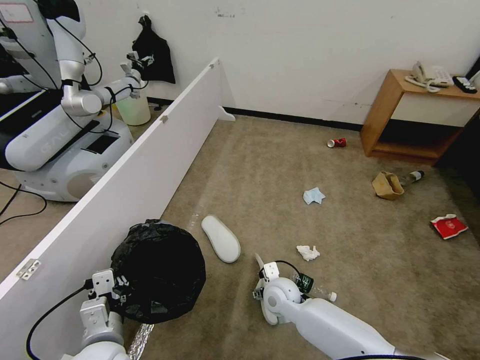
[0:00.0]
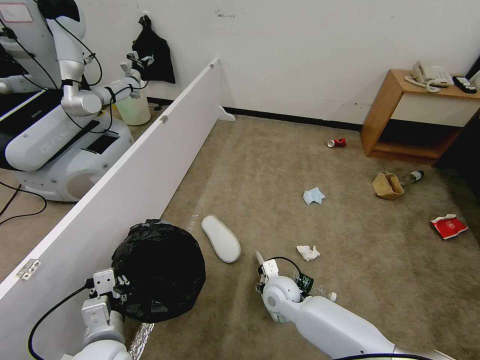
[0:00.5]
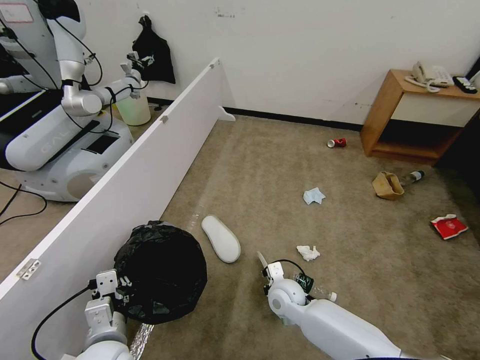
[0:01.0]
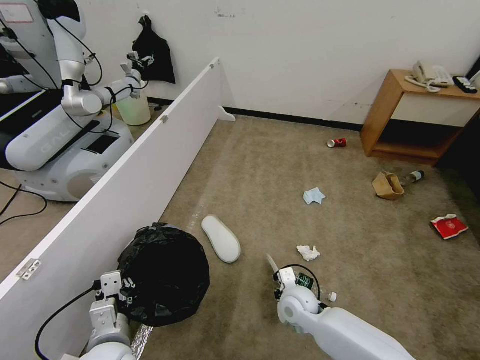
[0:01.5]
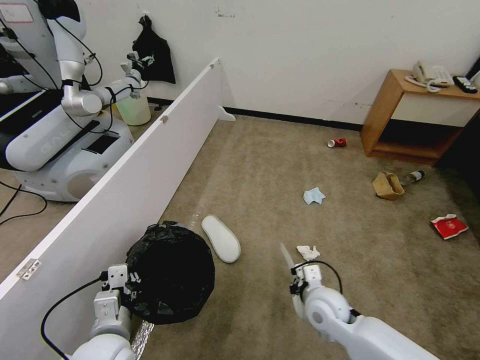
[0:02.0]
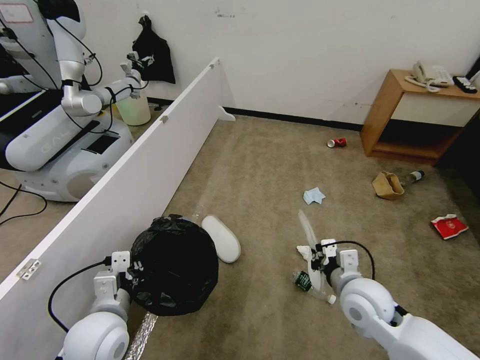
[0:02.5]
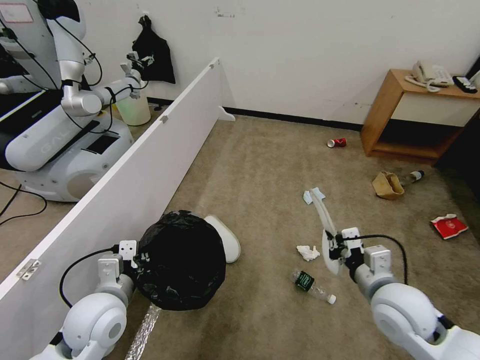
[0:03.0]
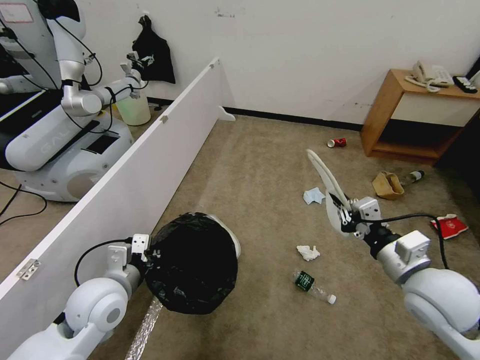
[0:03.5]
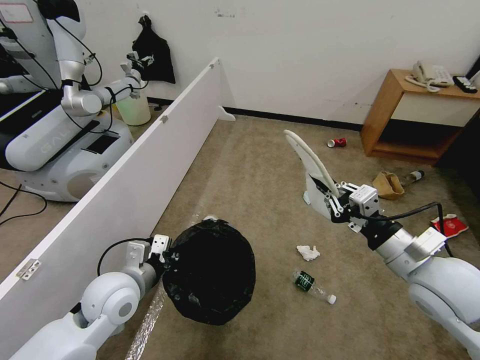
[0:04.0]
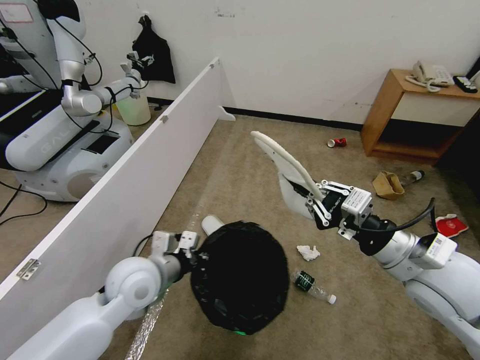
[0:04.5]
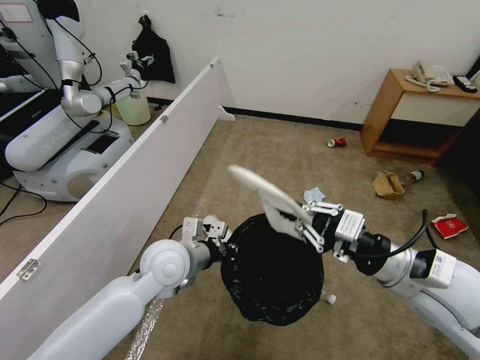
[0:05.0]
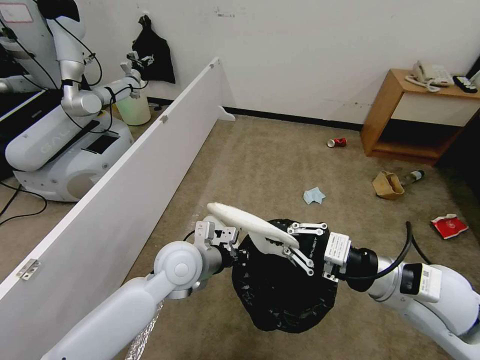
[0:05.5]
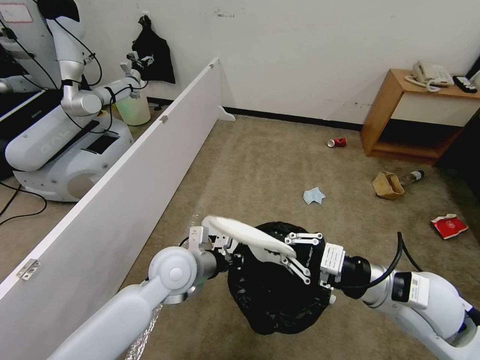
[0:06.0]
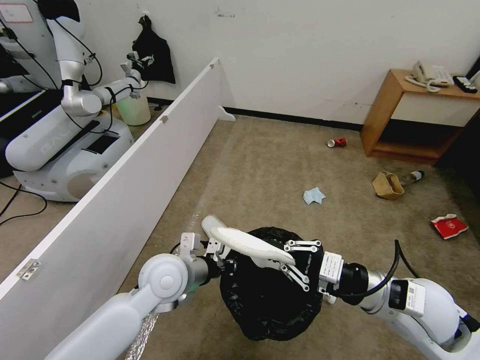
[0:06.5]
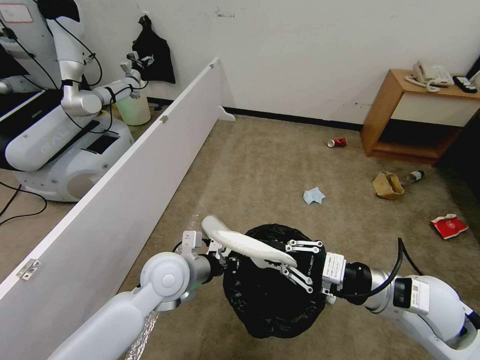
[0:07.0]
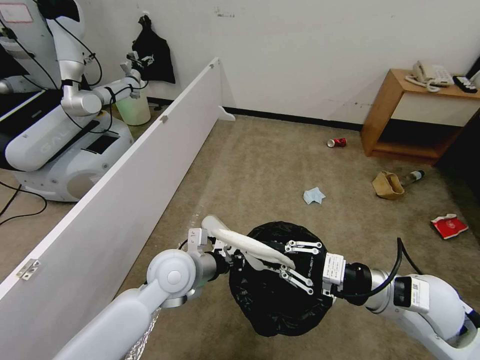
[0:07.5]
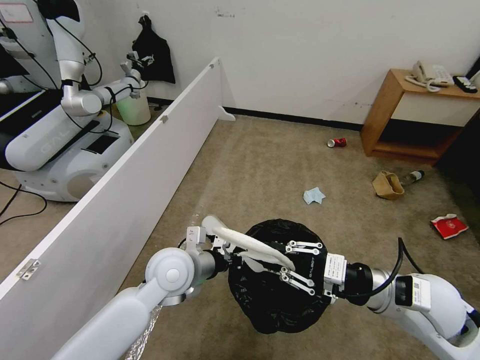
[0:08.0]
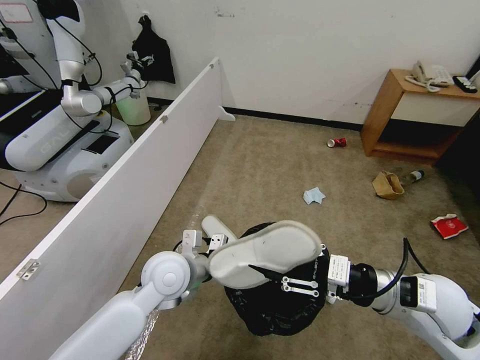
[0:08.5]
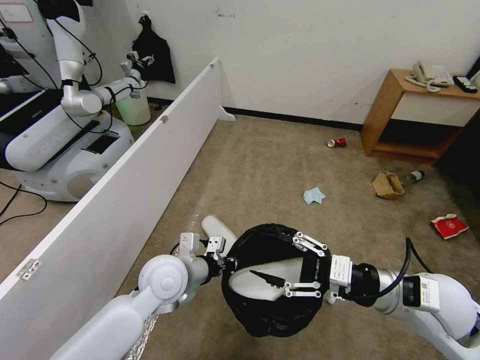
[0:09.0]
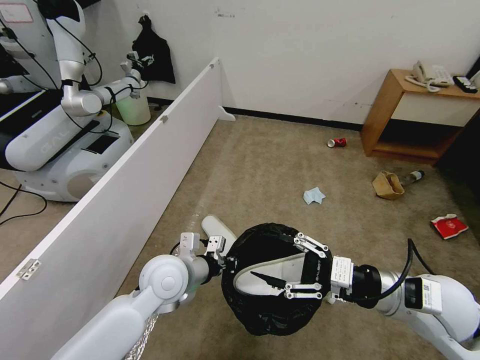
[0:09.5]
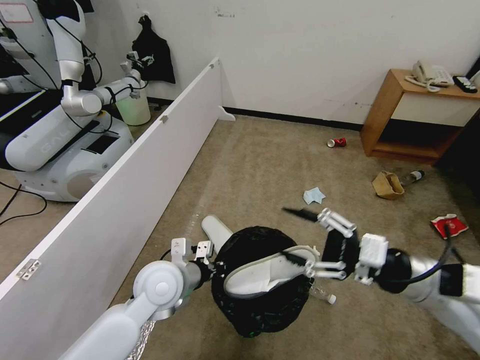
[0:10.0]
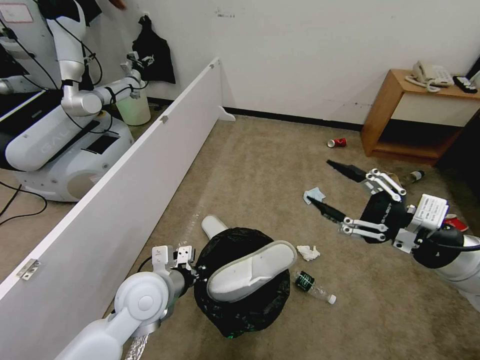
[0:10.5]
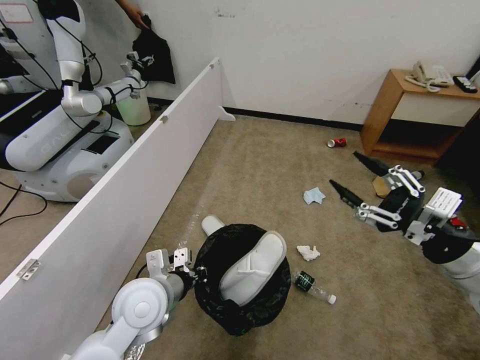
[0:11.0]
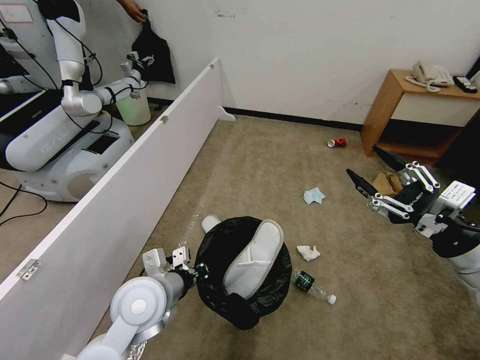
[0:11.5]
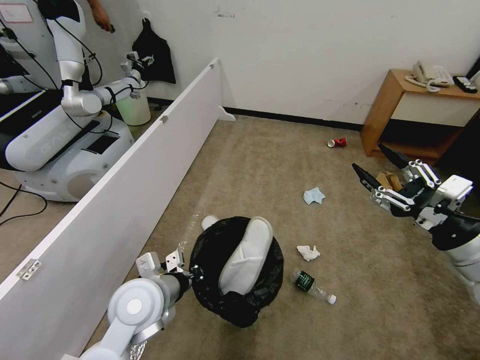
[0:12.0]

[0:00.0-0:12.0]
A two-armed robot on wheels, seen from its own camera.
Task of the whole recording: Pick up the trash bin, then pick up the garbage from the floor and place it into the trash bin.
0:00.0 to 0:02.0: The right gripper goes about 10 cm to the right, and closes its fingers.
0:02.0 to 0:04.0: The right gripper goes roughly 25 cm upward and to the right. Meanwhile the left gripper goes about 10 cm forward and upward.
0:04.0 to 0:06.0: The left gripper travels to the right by roughly 10 cm.
0:06.0 to 0:08.0: The grippers stay close to where they were, moving slightly.
0:08.0 to 0:10.0: The right gripper shifts by some 5 cm, and opens up.
0:10.0 to 0:12.0: The left gripper moves approximately 5 cm; the right gripper travels to the right by approximately 10 cm.

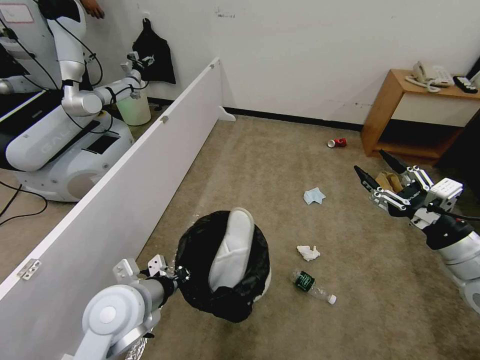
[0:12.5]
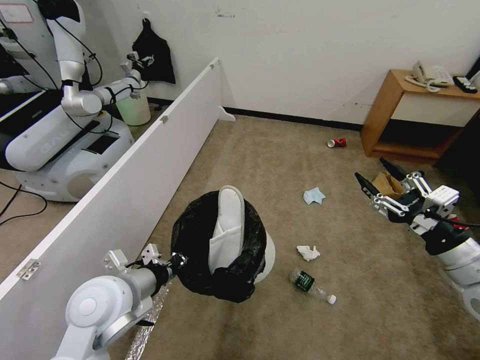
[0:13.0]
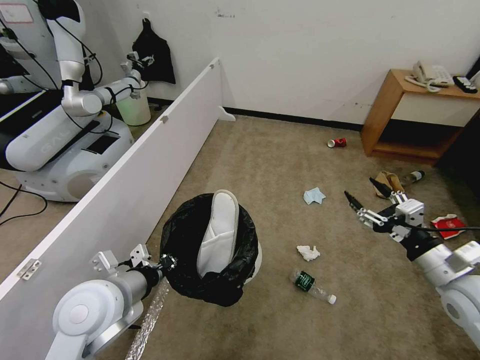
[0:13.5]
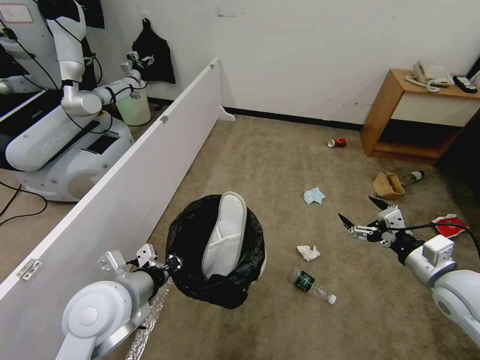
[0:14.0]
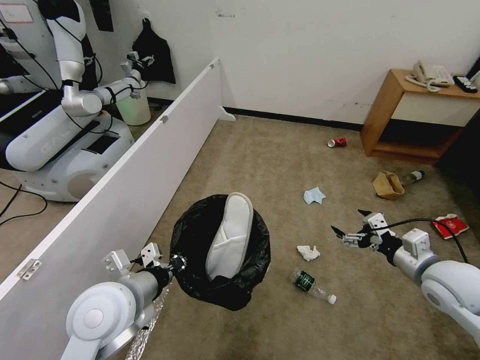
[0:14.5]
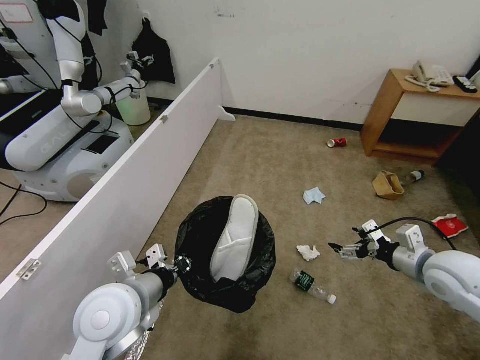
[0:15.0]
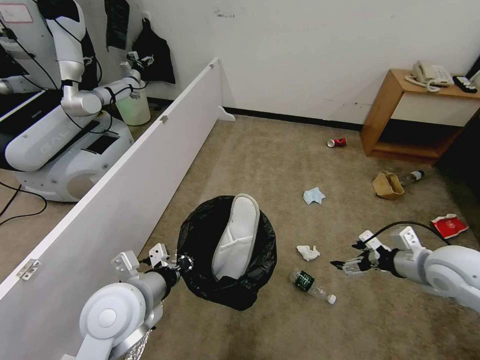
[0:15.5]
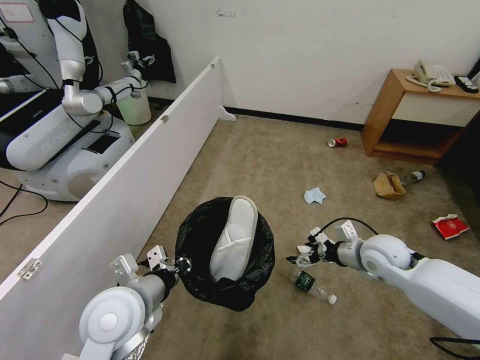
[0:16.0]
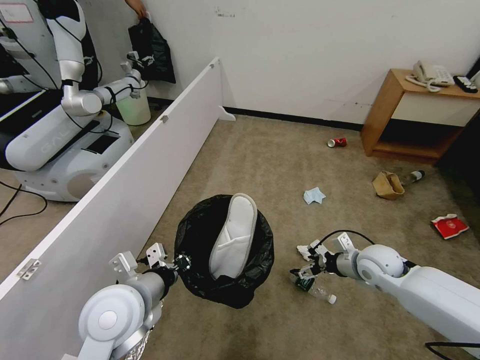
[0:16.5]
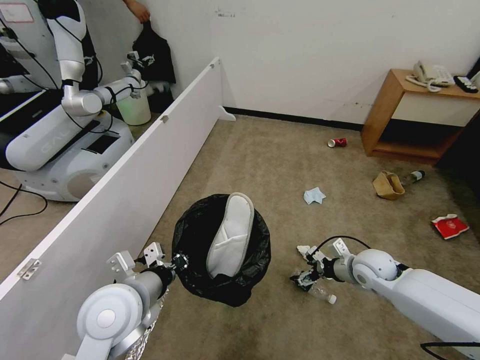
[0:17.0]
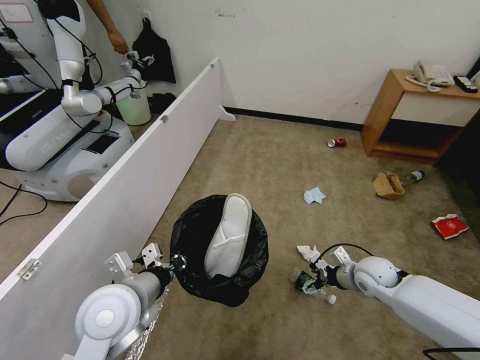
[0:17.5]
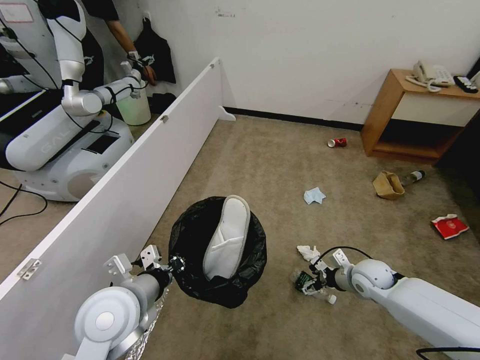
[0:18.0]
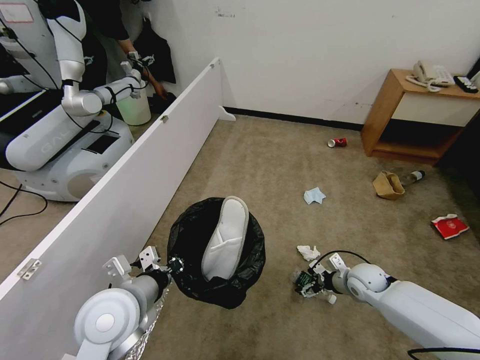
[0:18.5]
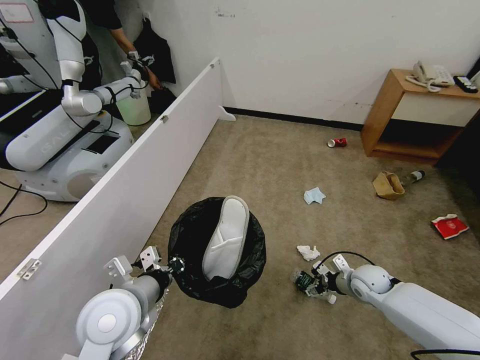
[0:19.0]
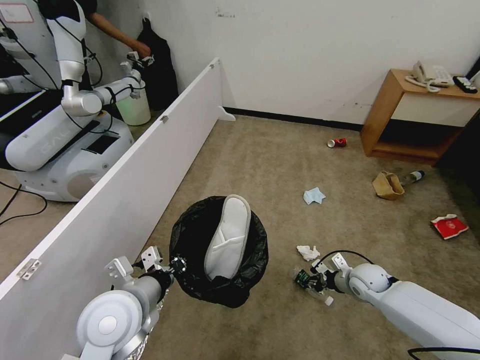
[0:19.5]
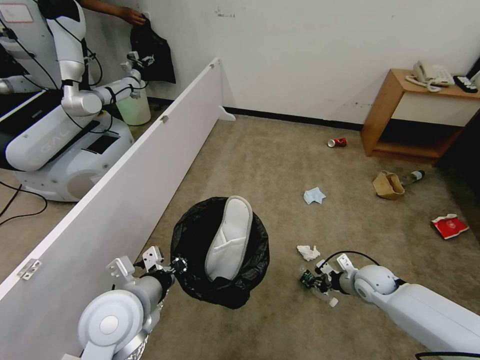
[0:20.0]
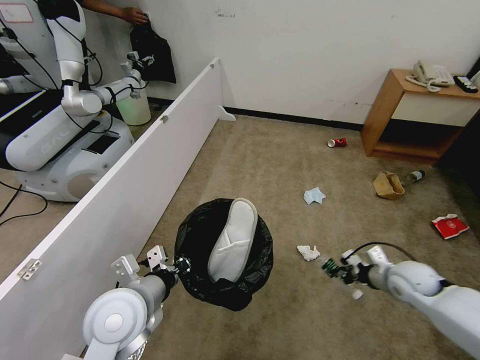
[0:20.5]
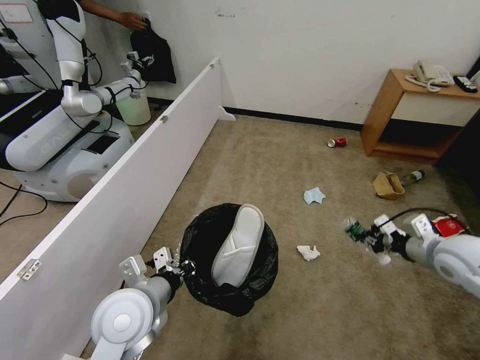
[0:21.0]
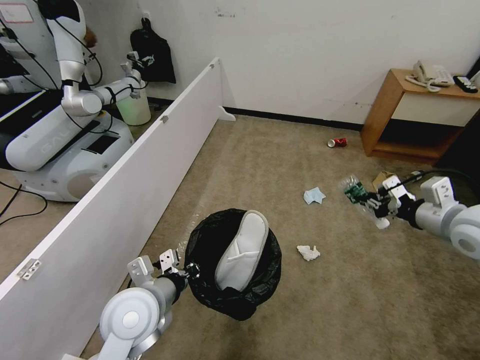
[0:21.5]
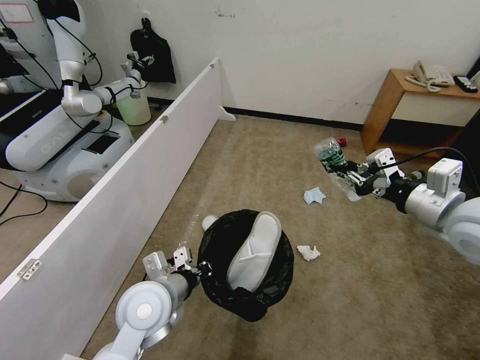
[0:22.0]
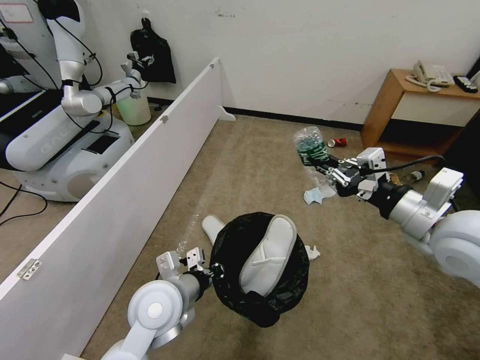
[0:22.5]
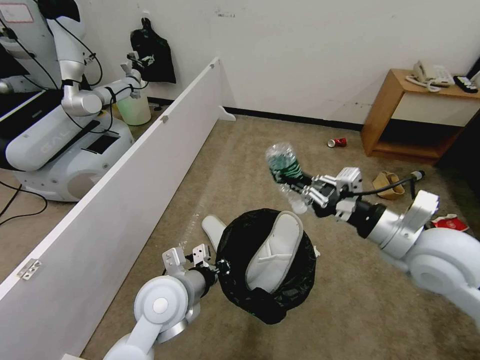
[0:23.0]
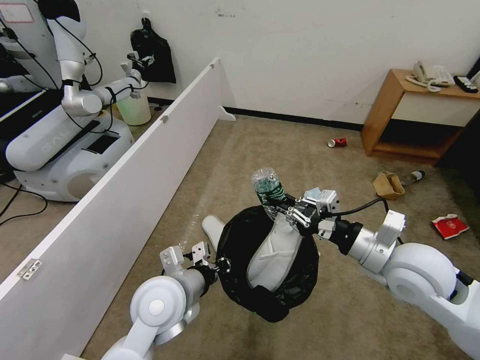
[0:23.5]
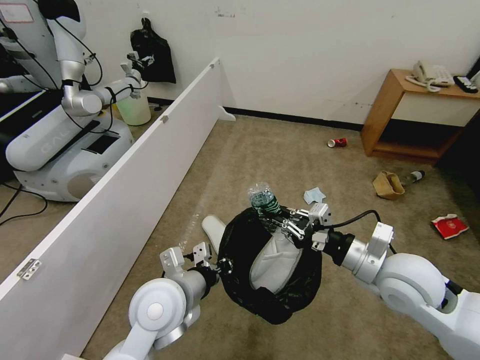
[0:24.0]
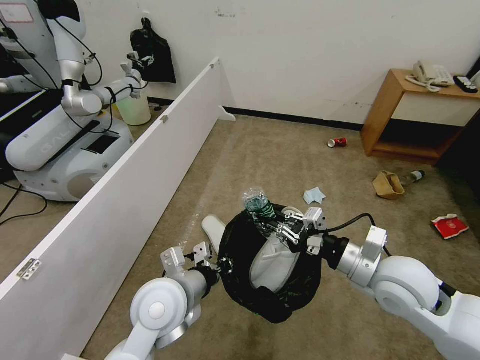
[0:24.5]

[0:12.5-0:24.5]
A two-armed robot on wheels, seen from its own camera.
Task of the whole recording: Pick up the trash bin, then pick up the garbage from the floor and place it into the trash bin.
0:12.5 to 0:14.5: The right gripper shifts roughly 5 cm downward.
0:14.5 to 0:16.5: The right gripper goes about 15 cm forward, downward and to the left.
0:16.5 to 0:18.5: The right gripper shifts about 10 cm downward.
0:18.5 to 0:20.5: The right gripper travels upward and to the right by about 10 cm, and closes.
0:20.5 to 0:22.5: The left gripper heads to the right, covering approximately 5 cm, while the right gripper heads upward, covering some 25 cm.
0:22.5 to 0:24.5: The right gripper heads downward and to the left, covering roughly 10 cm.

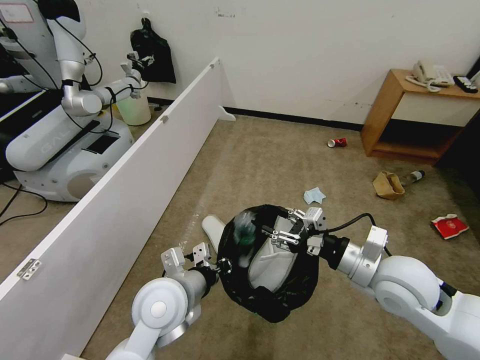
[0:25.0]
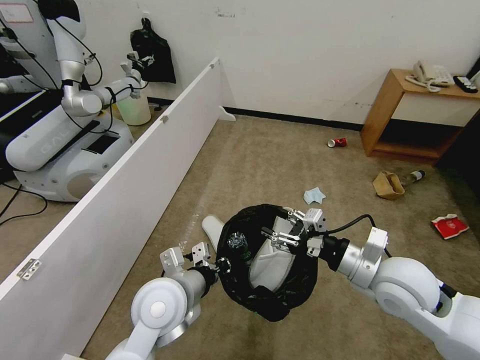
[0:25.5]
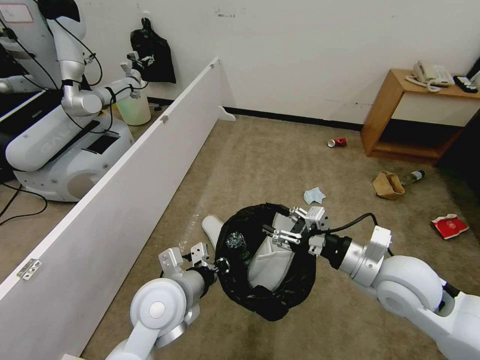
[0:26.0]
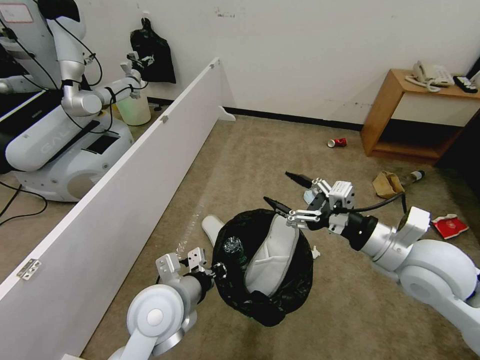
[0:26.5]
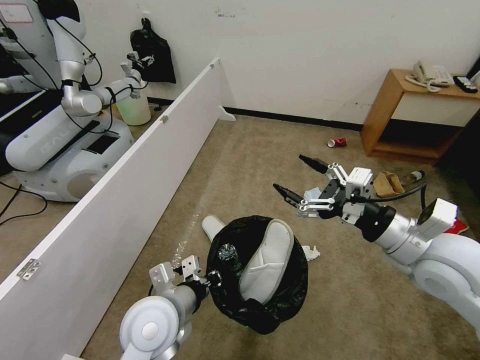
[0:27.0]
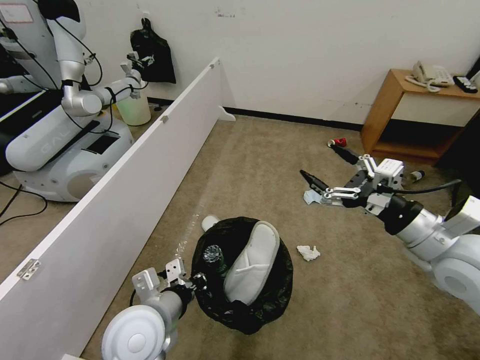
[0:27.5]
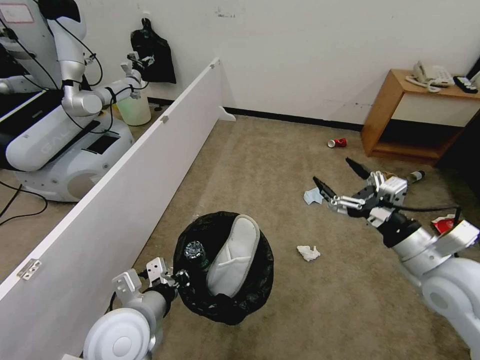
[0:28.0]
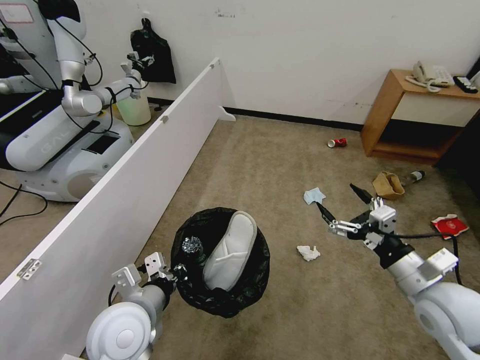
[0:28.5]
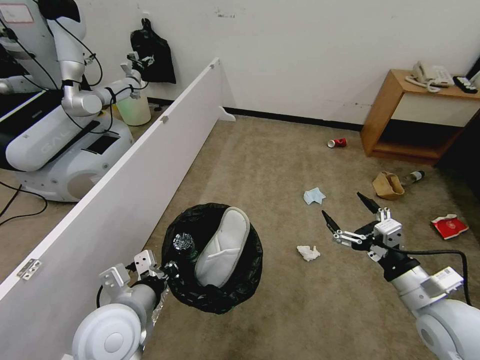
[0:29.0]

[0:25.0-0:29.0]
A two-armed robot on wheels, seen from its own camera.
Task of the whole recording: Pick up the trash bin, then pick up the garbage from the floor and place it into the trash bin.
0:25.0 to 0:27.0: The right gripper travels upward by some 5 cm, and opens.
0:27.0 to 0:29.0: The left gripper is displaced to the left by roughly 5 cm. Meanwhile the right gripper moves downward and backward, approximately 15 cm.
